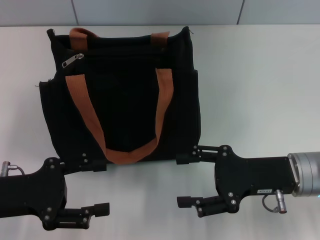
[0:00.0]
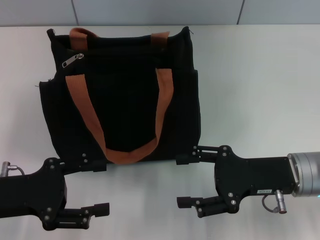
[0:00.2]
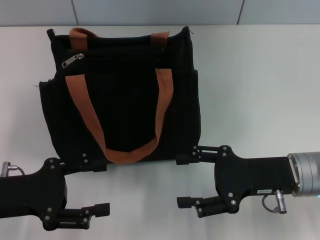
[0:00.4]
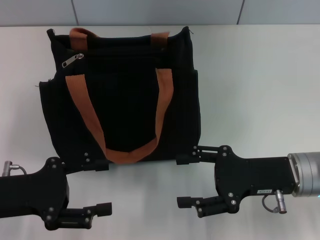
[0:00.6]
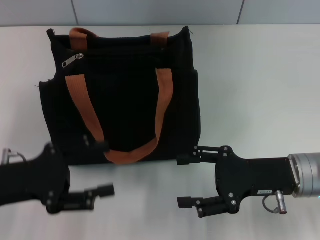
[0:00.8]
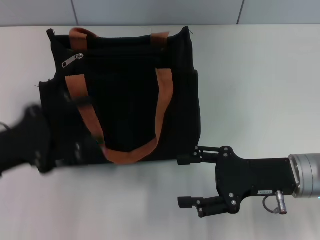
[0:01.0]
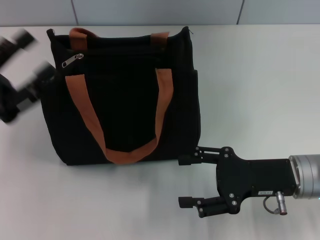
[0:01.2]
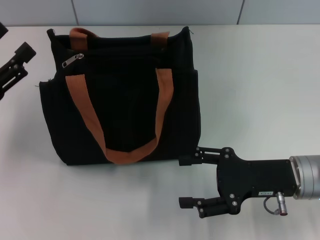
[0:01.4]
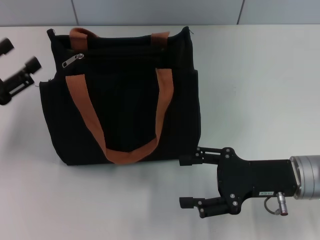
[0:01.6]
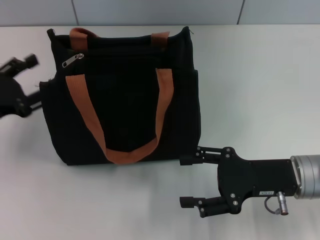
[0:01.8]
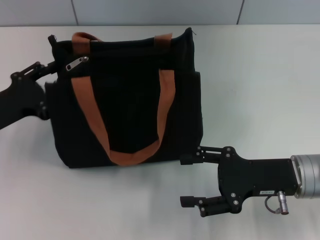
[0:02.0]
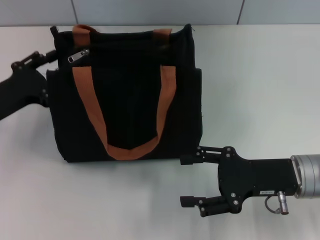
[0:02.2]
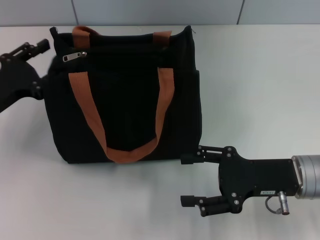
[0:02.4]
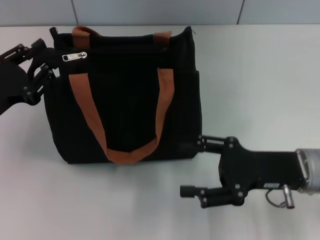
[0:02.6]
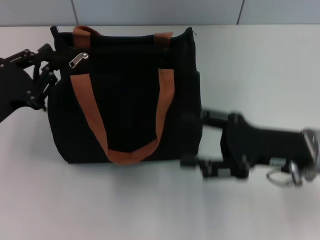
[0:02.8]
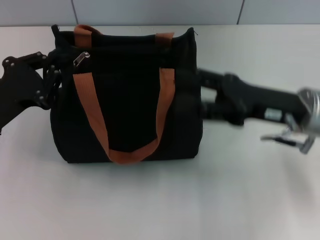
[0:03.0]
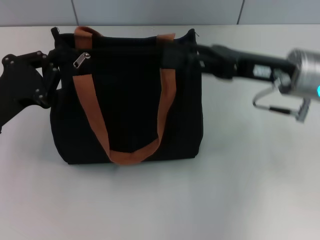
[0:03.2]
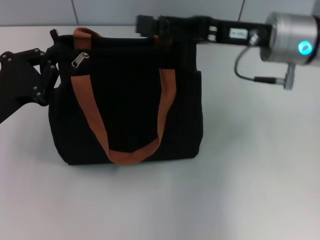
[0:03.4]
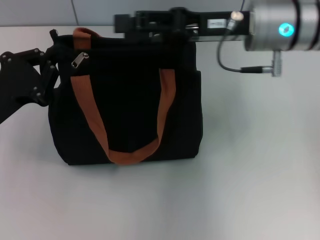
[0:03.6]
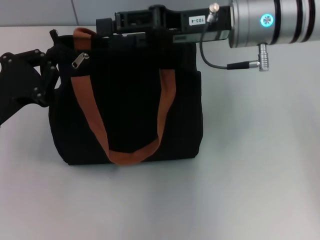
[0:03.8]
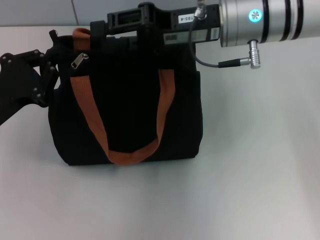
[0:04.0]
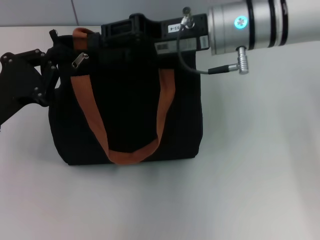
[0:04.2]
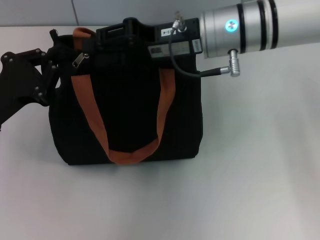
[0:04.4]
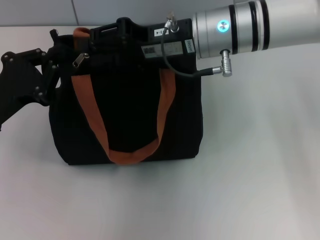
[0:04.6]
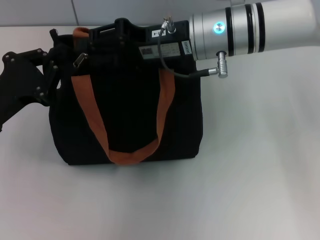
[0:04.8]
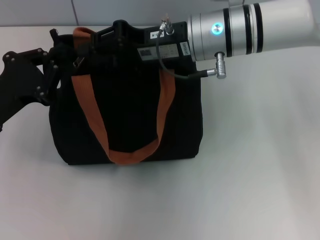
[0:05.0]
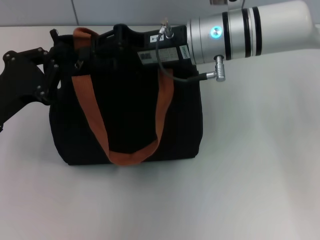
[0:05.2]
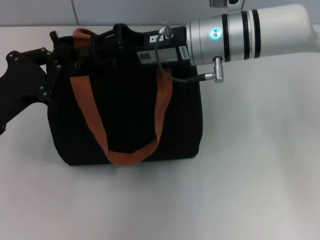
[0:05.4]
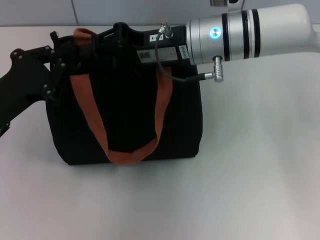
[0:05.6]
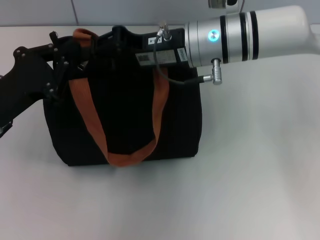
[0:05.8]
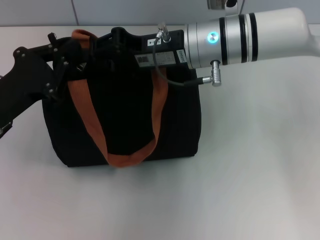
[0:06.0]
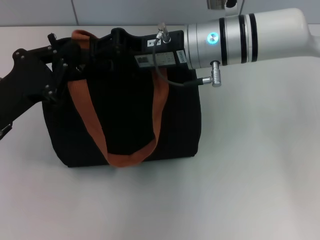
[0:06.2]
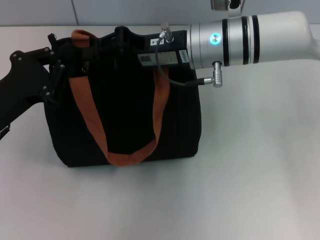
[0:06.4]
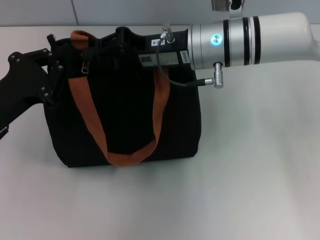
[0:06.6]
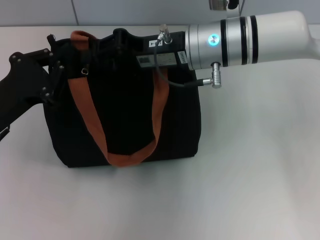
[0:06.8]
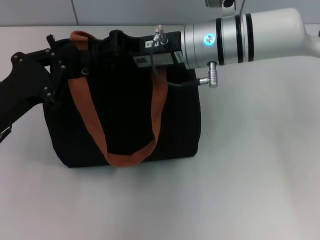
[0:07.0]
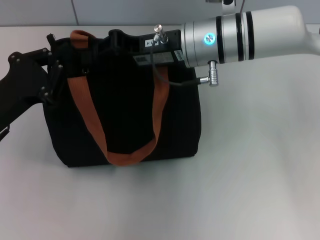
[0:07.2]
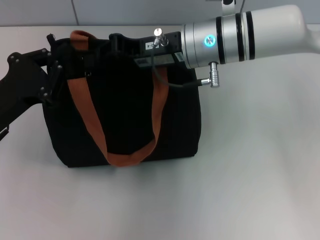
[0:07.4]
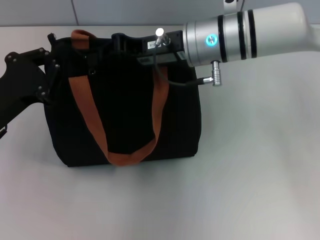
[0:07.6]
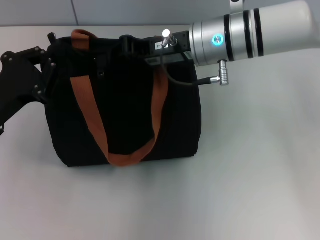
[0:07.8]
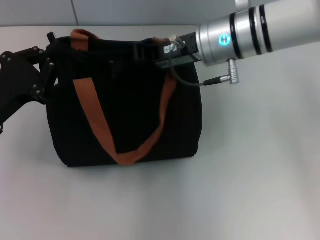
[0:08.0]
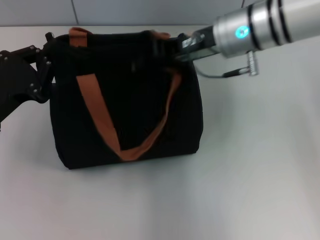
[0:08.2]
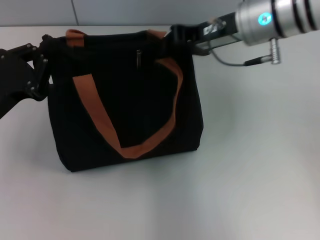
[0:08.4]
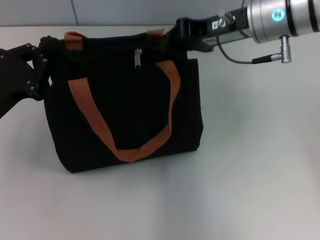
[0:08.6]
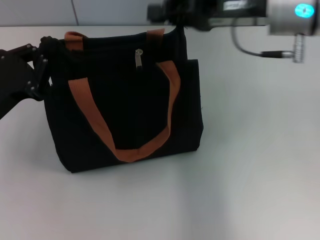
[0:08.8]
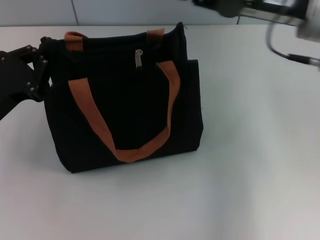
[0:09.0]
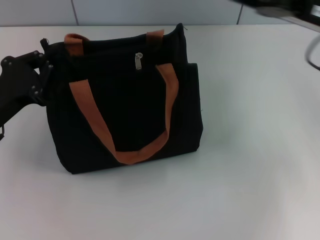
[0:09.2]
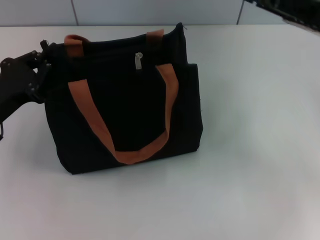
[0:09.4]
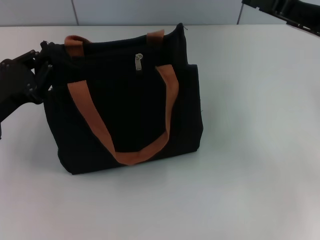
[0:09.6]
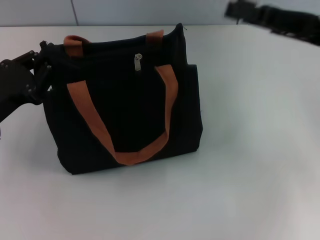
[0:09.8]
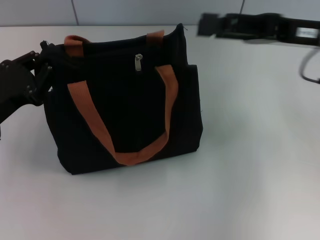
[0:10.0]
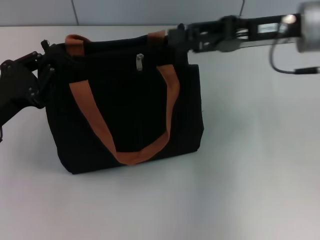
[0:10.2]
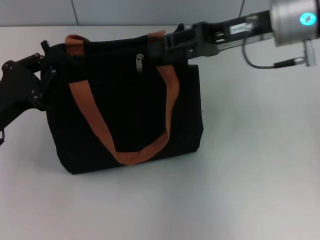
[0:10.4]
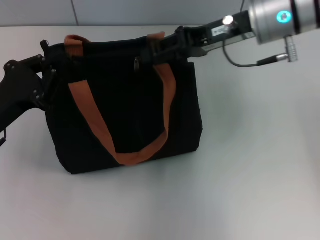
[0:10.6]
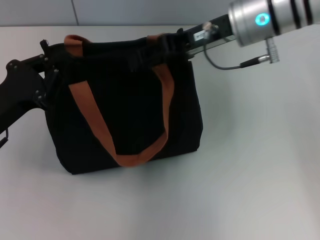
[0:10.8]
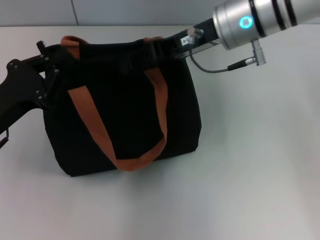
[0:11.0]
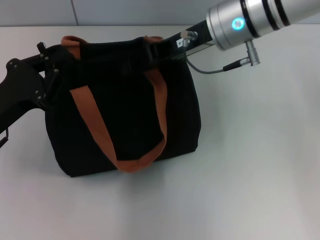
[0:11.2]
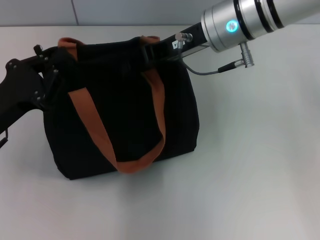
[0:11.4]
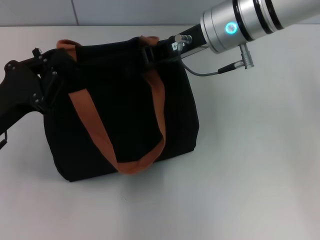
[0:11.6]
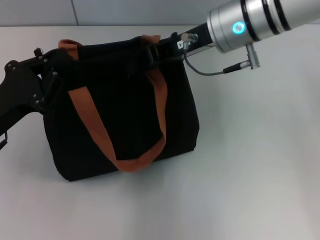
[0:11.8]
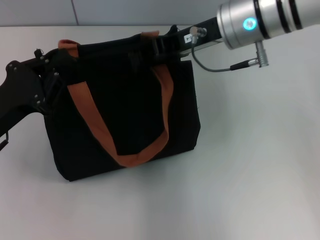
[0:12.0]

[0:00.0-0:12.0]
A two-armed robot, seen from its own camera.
0:00.0 to 0:01.6: The left gripper changes place by about 5 cm.
0:01.6 to 0:03.0: The right gripper goes approximately 5 cm upward, while the left gripper shifts some 5 cm to the right, and closes.
0:03.0 to 0:04.4: The right gripper goes about 15 cm to the left, forward and upward, and closes.
0:04.4 to 0:07.6: The grippers stay close to where they were, moving slightly.
0:07.6 to 0:09.0: The right gripper shifts about 10 cm to the right.
0:09.0 to 0:10.4: The right gripper opens its fingers.
0:10.4 to 0:12.0: The right gripper moves to the left, some 5 cm, and closes.

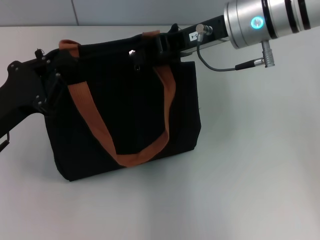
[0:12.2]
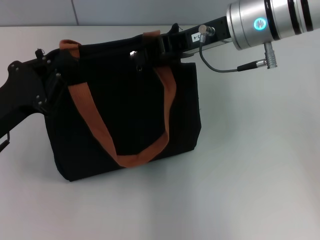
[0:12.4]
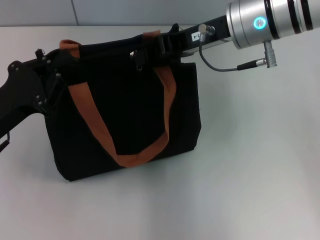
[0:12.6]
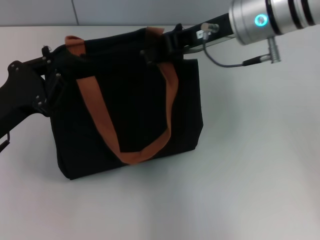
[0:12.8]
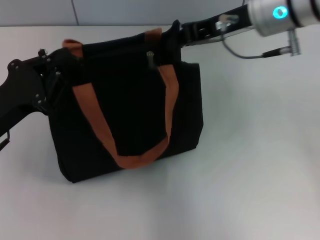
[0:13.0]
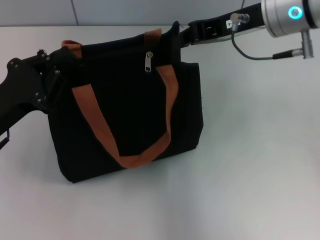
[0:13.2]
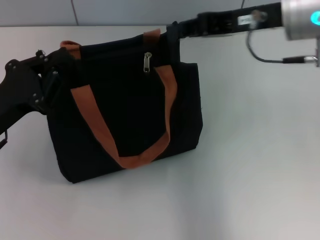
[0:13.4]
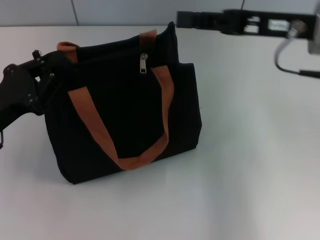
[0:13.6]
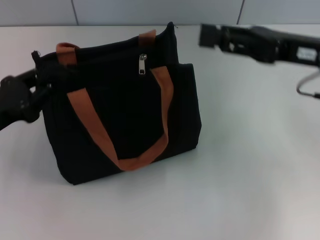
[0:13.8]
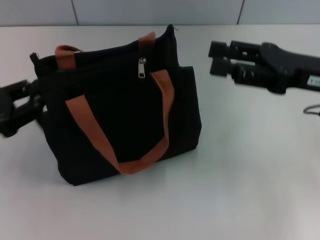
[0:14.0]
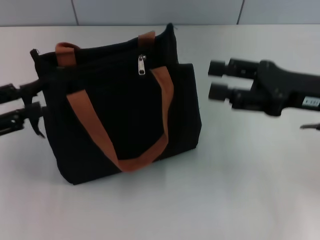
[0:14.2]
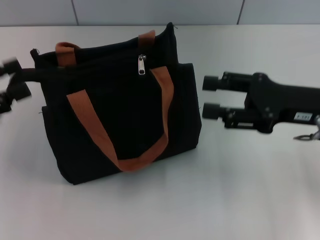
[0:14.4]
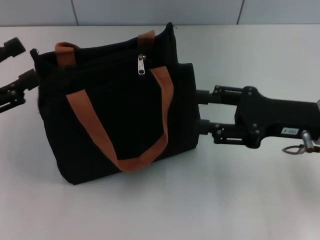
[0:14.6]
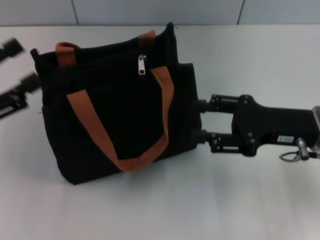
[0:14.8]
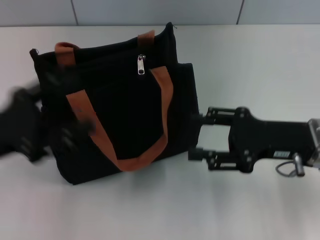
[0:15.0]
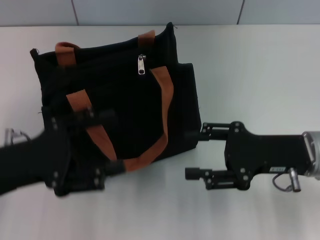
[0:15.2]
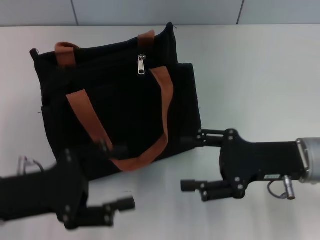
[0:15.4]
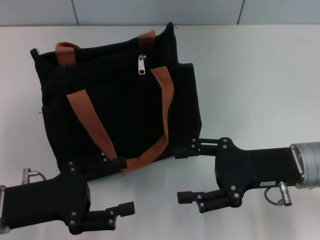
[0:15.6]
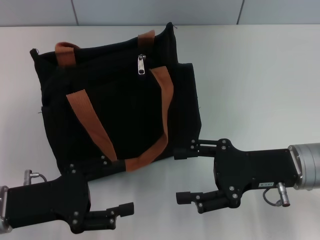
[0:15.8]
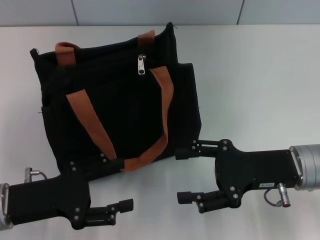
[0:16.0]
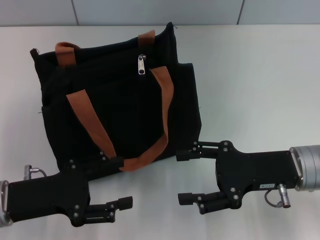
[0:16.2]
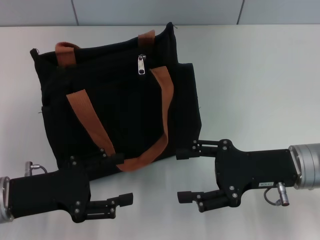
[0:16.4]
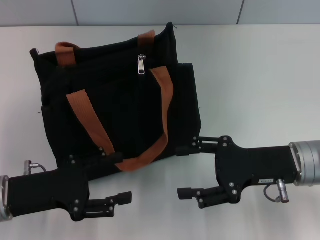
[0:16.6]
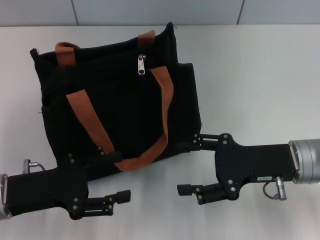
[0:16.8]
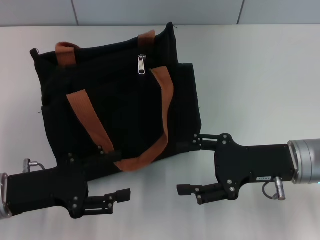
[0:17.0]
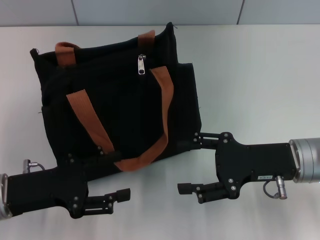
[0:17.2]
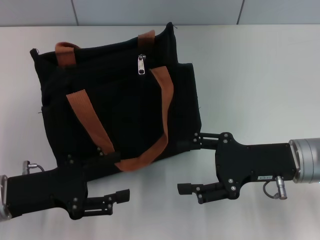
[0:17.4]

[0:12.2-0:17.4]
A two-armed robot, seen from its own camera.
Step, 0:13.0 to 0:14.4: Grab the zipper with your left hand.
0:12.2 to 0:14.0: The left gripper shifts about 5 cm to the left. Meanwhile the right gripper moves to the right, backward and downward, about 15 cm, and opens.
0:14.0 to 0:15.6: The right gripper travels downward by about 10 cm, and opens up; the left gripper goes about 10 cm to the right and backward, and opens its fingers.
0:15.6 to 0:17.4: The grippers move only a little.

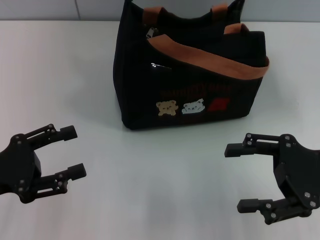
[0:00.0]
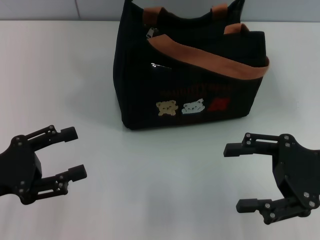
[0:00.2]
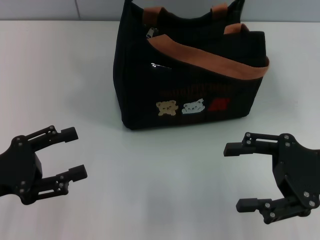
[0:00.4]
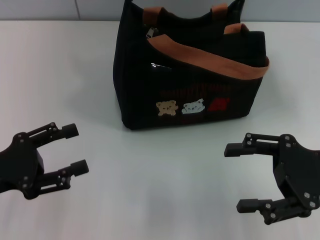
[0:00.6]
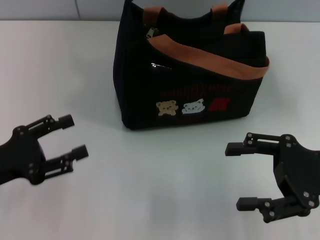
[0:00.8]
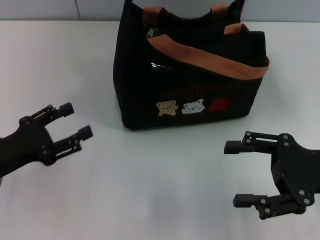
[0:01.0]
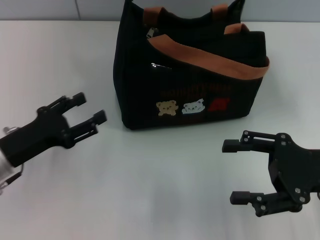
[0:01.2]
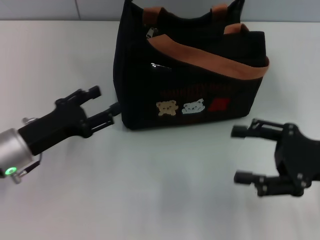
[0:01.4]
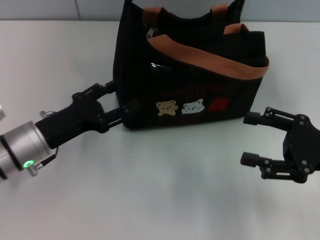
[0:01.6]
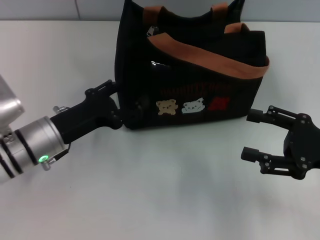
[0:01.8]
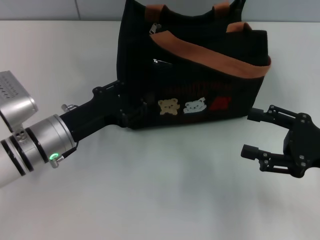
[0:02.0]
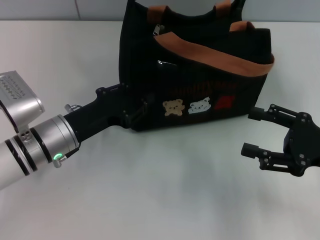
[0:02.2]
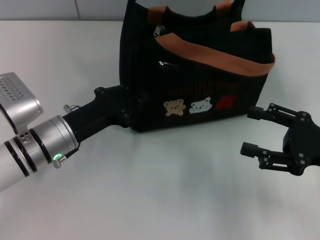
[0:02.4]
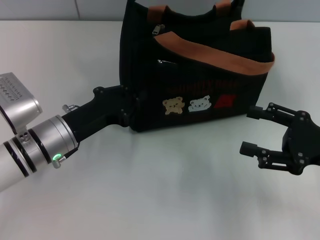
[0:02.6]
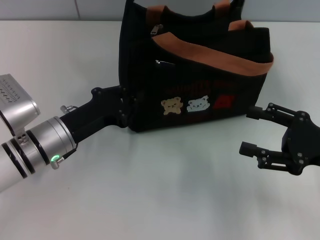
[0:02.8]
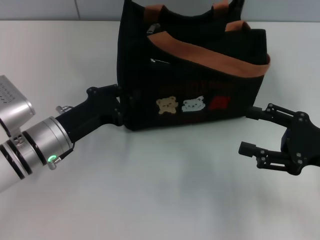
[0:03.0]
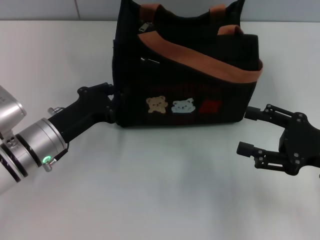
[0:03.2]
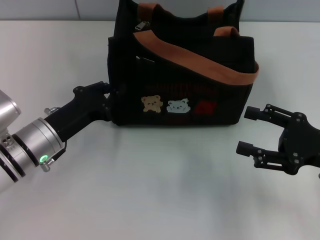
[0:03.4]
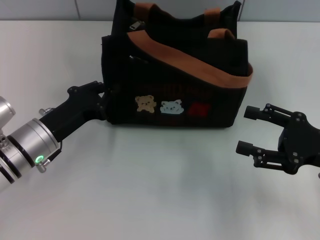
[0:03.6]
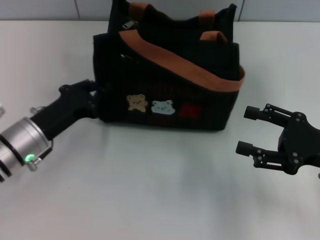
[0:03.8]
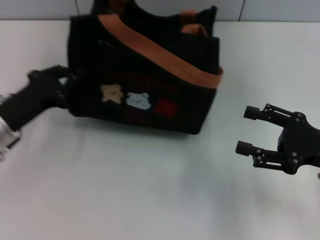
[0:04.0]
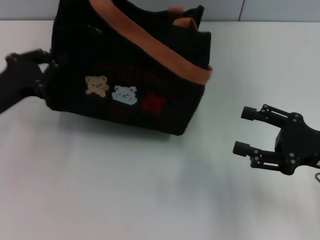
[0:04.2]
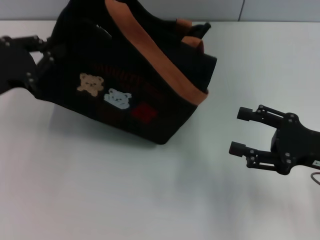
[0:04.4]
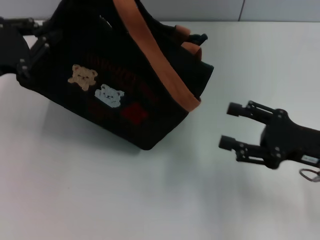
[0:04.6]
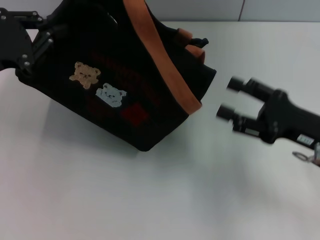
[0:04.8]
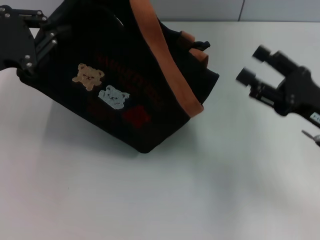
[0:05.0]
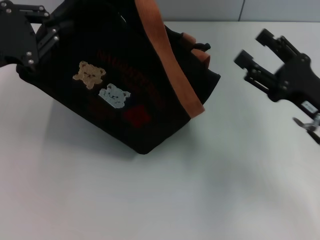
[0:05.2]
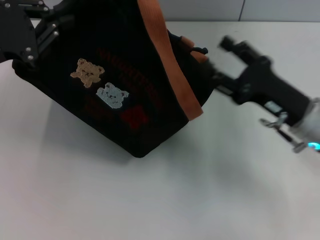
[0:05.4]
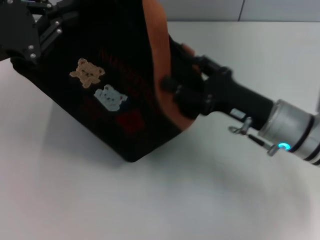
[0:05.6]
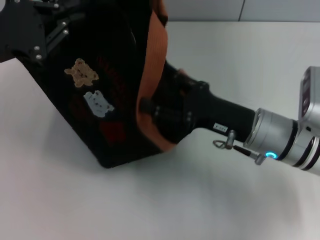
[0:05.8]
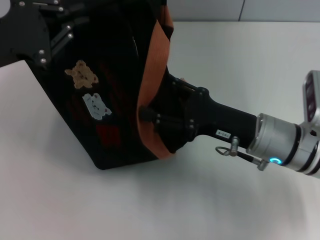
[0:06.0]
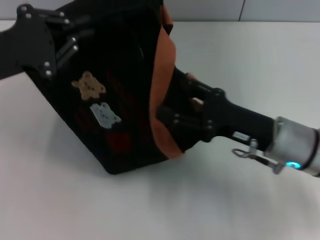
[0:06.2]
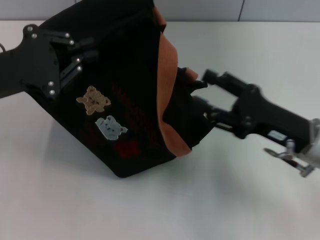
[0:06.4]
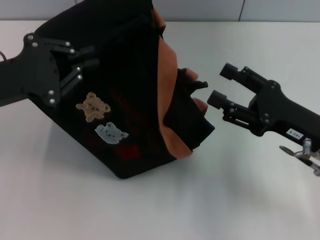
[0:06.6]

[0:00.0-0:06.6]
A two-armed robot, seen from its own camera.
0:00.0 to 0:01.6: The left gripper heads to the right and forward, covering some 10 cm.
0:01.6 to 0:03.2: The left gripper closes.
0:03.2 to 0:05.0: The left gripper shifts approximately 15 cm upward and to the left.
0:05.0 to 0:06.6: The right gripper goes to the left and returns, some 10 cm each way.
